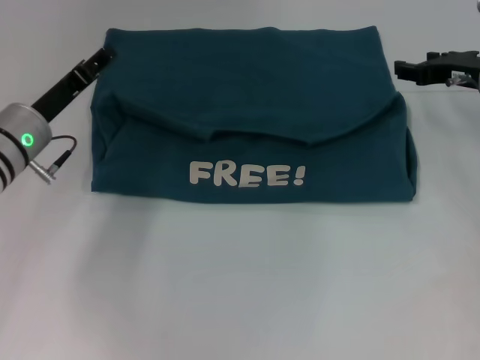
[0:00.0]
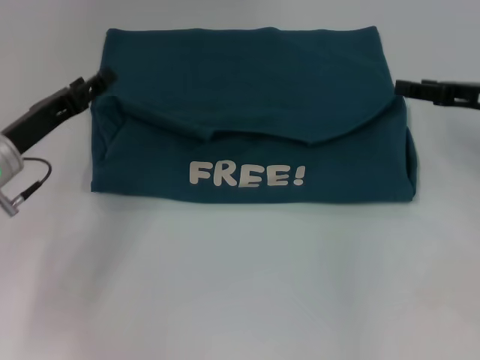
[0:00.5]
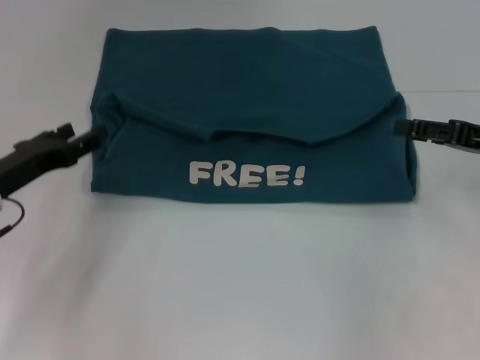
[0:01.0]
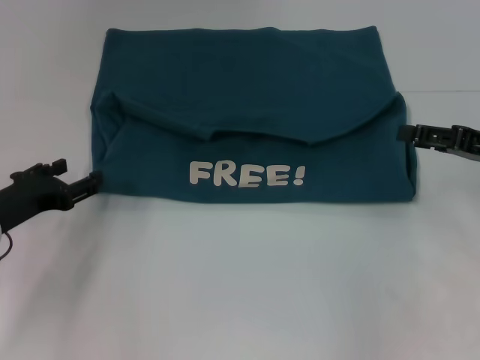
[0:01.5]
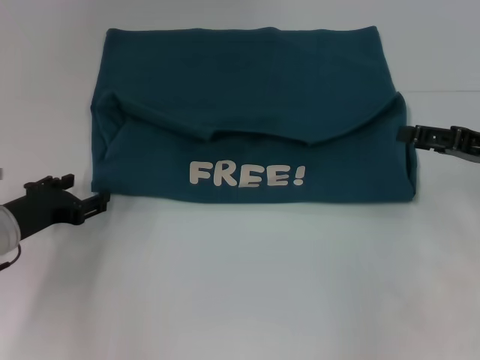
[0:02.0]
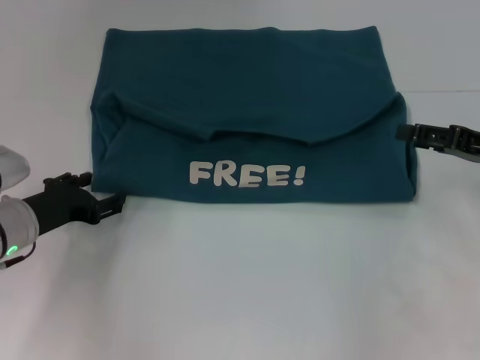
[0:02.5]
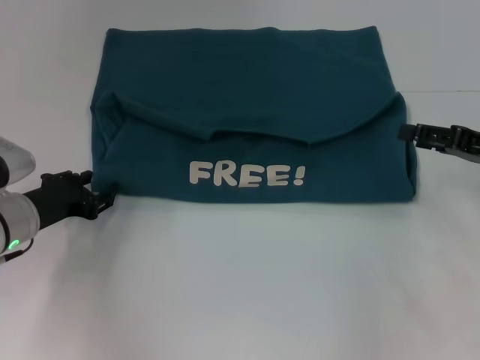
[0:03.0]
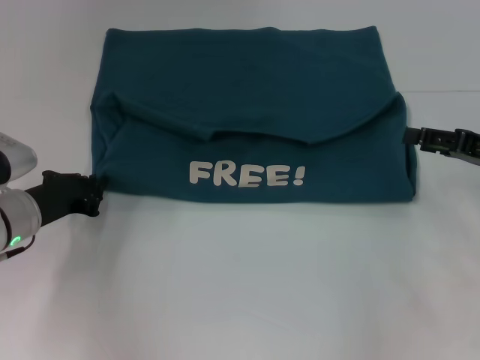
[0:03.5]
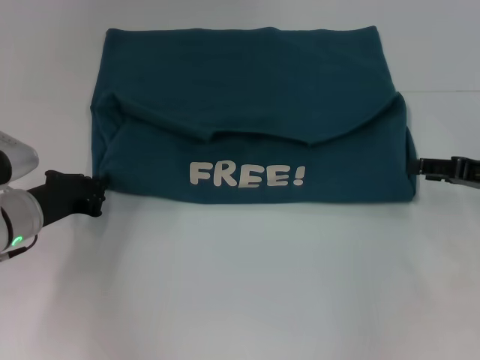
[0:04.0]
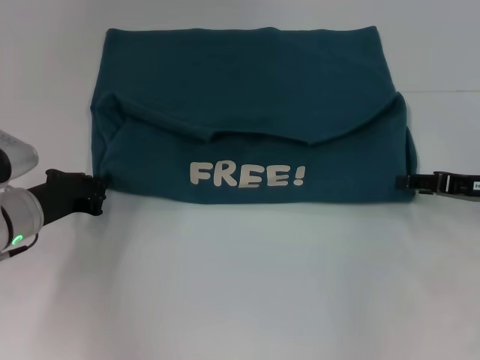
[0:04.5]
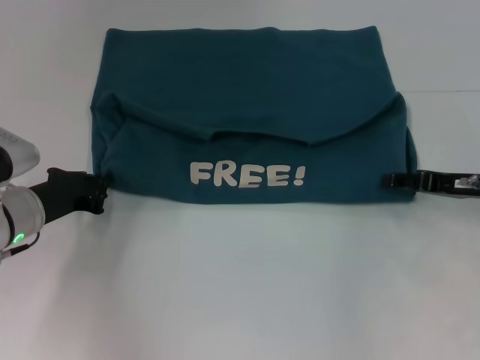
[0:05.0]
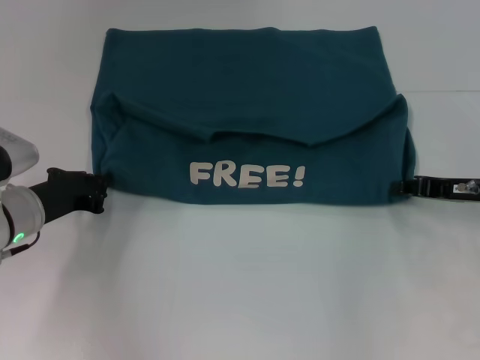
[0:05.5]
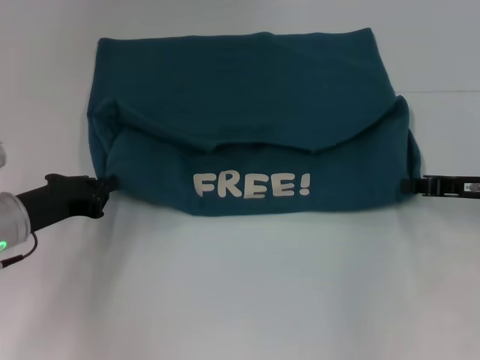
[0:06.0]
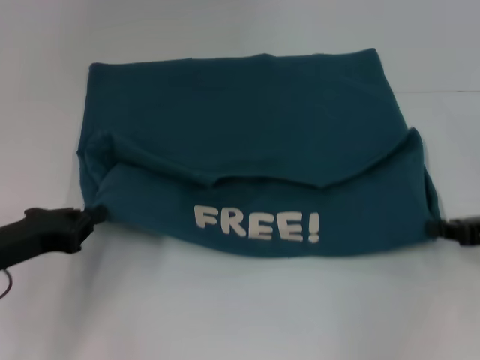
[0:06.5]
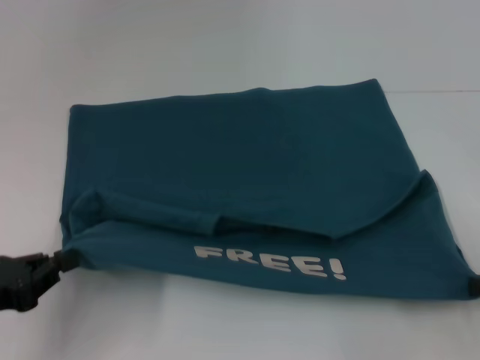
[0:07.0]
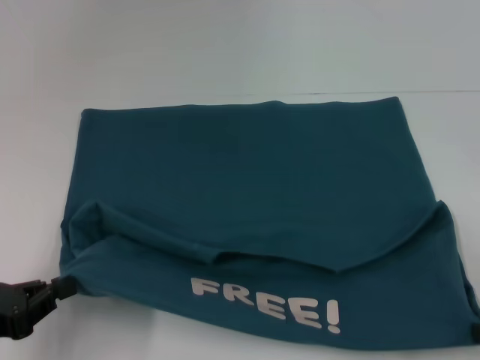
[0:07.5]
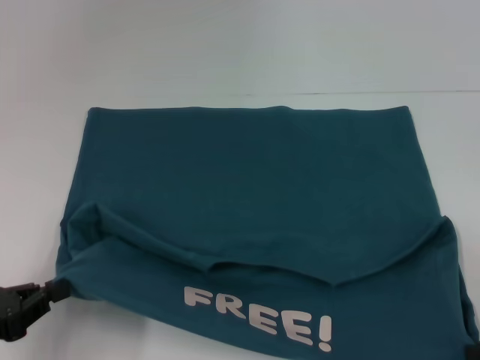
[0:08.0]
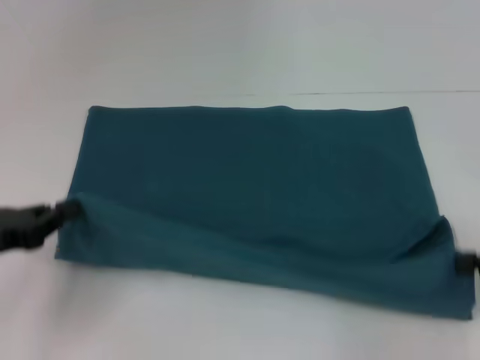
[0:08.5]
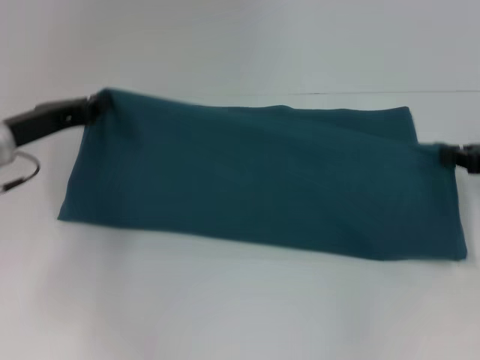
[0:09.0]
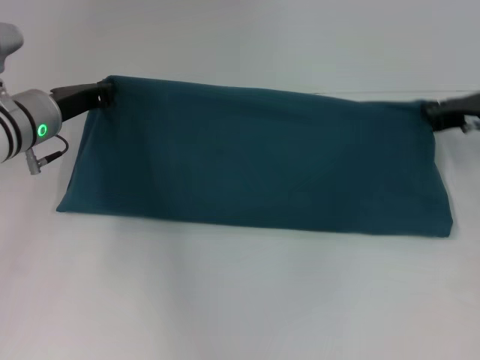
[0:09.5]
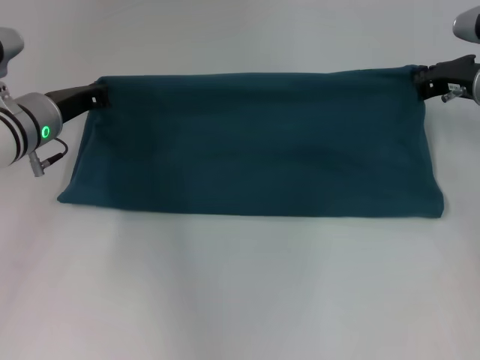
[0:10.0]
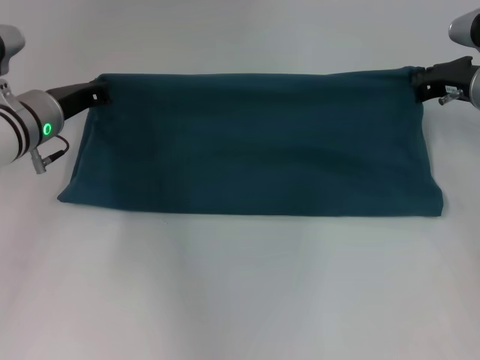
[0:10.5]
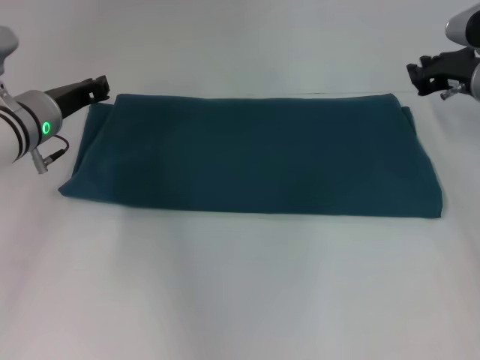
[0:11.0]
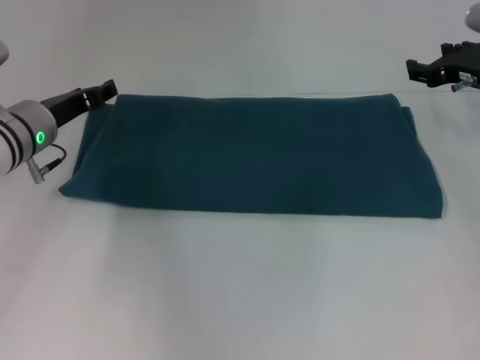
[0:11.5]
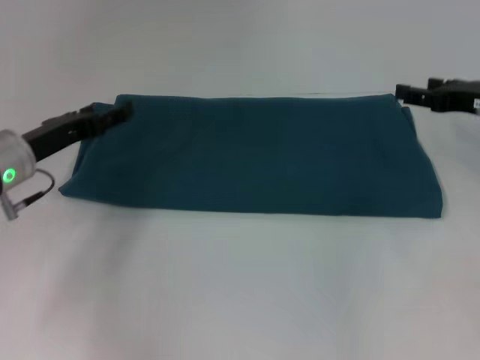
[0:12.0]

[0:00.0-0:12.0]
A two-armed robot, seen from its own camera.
Step, 0:00.0 to 0:07.0: Pull the clothes with your left hand.
Step, 0:00.0 to 0:07.0: Pull the clothes with your right hand.
Step, 0:07.5 to 0:11.0: Fold the clothes to the left.
Step, 0:07.5 to 0:11.0: Fold the clothes to the right.
0:00.0 to 0:02.0: Both grippers travel together backward, approximately 10 cm.
0:02.0 to 0:04.0: The left gripper closes.
0:04.0 to 0:06.0: The right gripper closes.
0:06.0 to 0:08.0: The right gripper shifts about 15 cm backward; the left gripper moves backward and to the left, some 15 cm.
0:08.0 to 0:10.0: Both grippers travel together forward, approximately 25 cm.
0:10.0 to 0:12.0: The grippers both shift backward by roughly 5 cm. The right gripper opens. Meanwhile the left gripper opens.

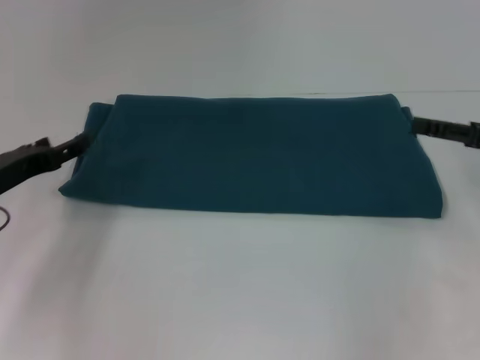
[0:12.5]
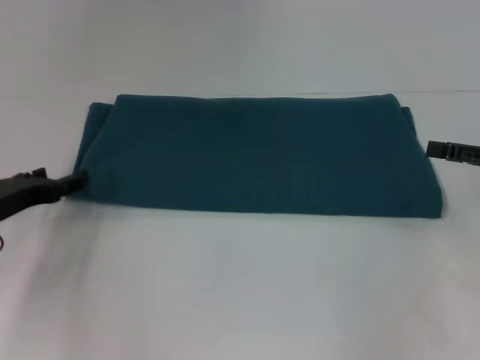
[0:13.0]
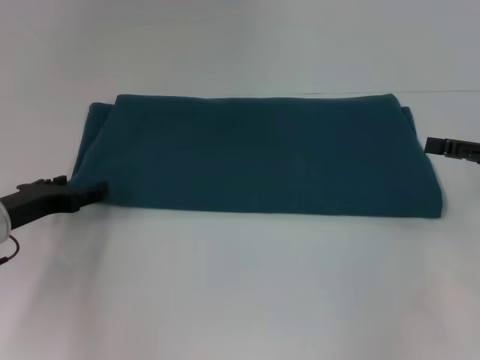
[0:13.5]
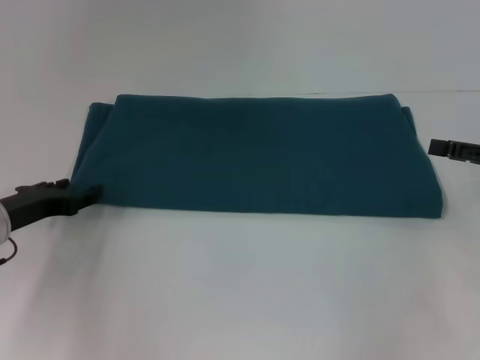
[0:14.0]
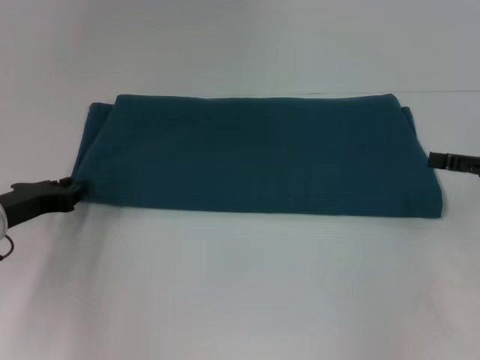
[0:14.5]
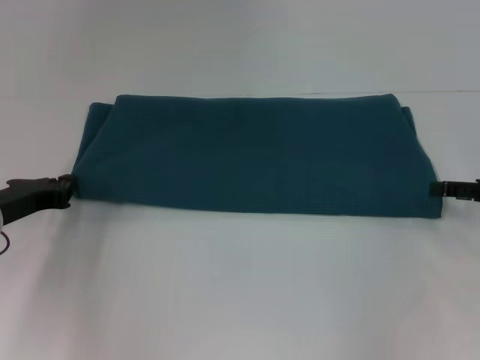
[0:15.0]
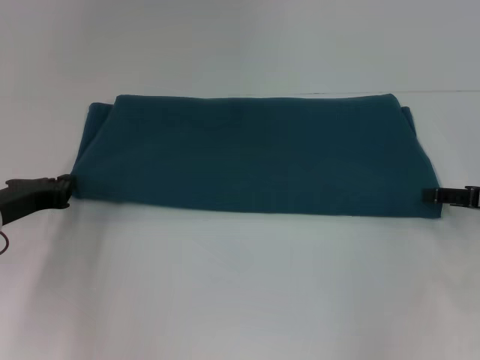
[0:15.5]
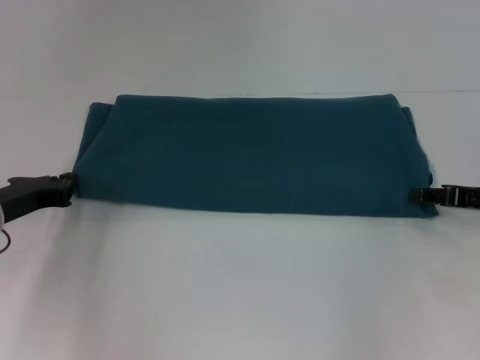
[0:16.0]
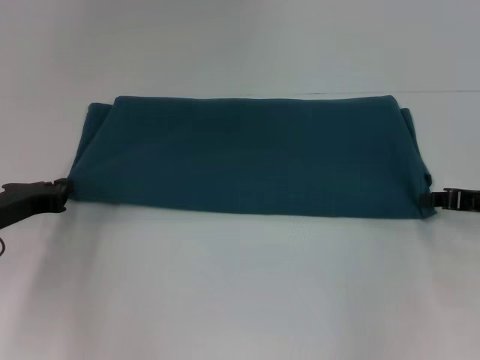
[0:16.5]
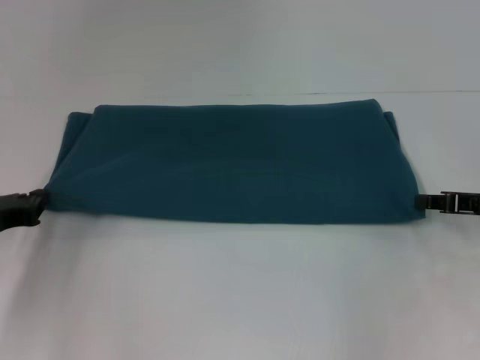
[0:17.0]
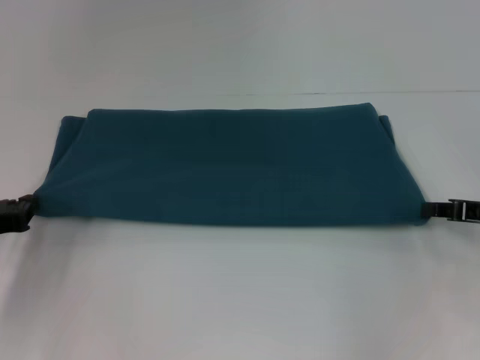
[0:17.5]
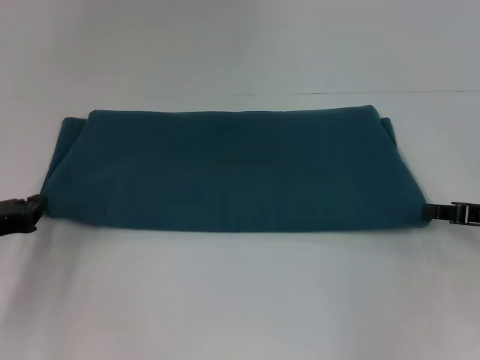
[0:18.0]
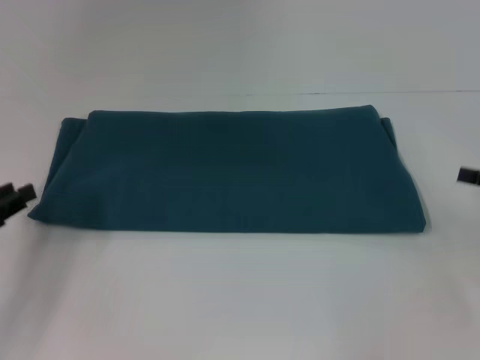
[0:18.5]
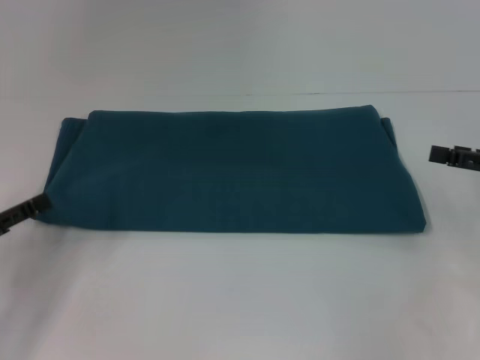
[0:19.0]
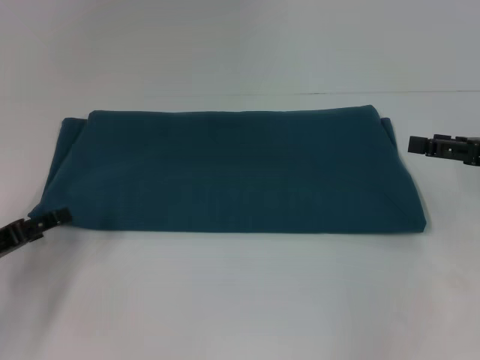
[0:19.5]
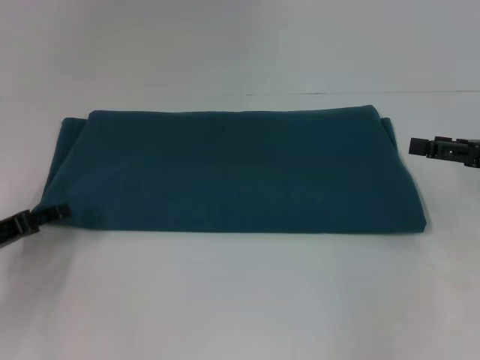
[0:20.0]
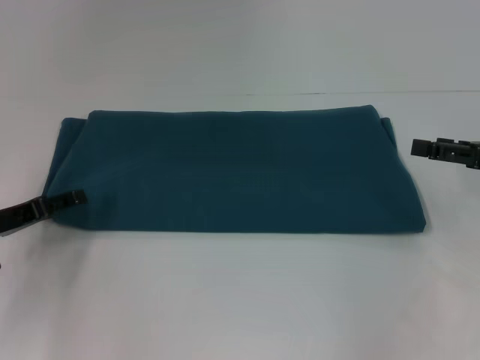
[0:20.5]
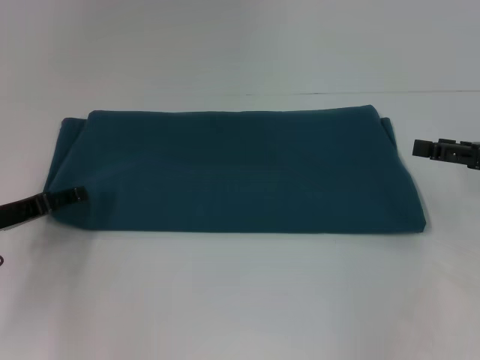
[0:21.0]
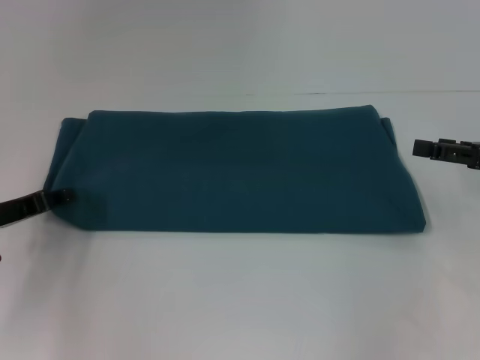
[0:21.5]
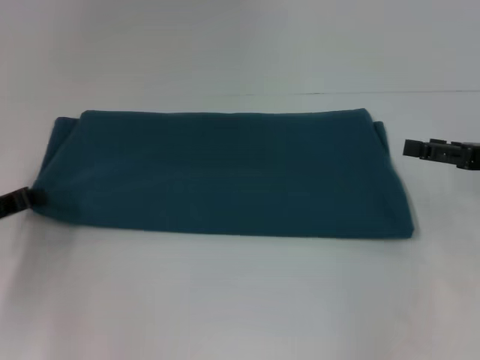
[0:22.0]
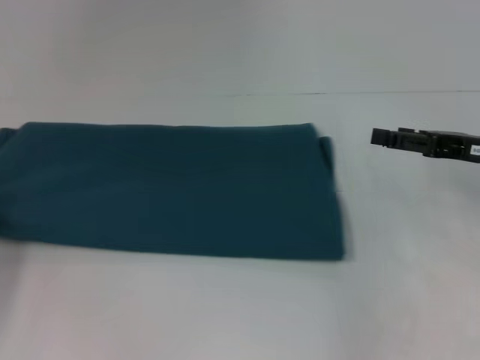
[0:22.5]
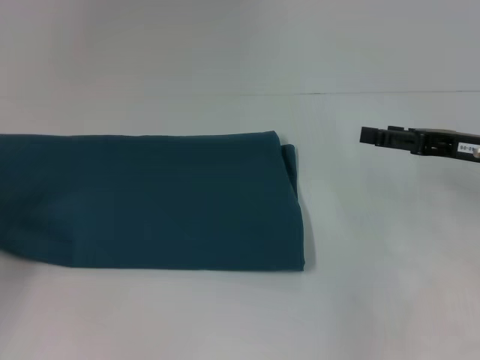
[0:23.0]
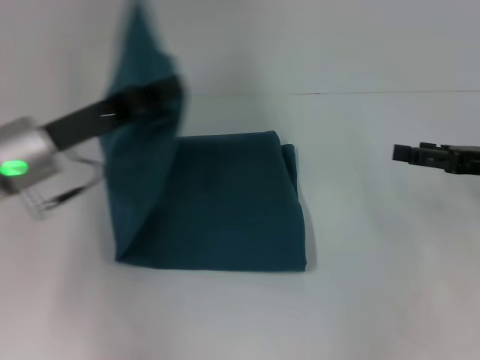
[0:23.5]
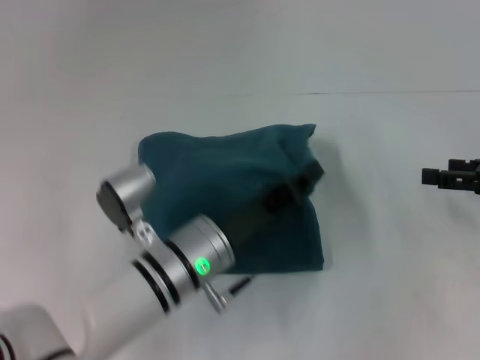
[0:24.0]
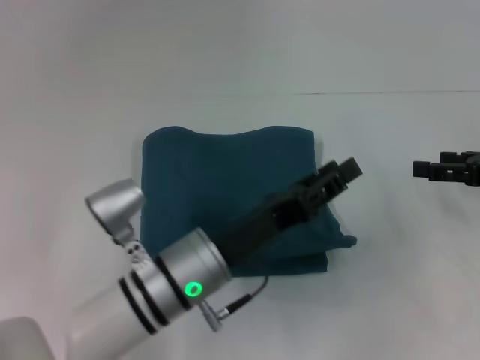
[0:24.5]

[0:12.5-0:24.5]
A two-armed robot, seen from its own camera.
Step, 0:12.5 to 0:18.5: Pull the clothes with your left hand.
Step, 0:12.5 to 0:18.5: Pull the clothes with your right hand.
Step, 0:19.0 to 0:24.5: Fold the clothes to the left.
0:12.5 to 0:14.5: The left gripper closes its fingers.
0:14.5 to 0:16.5: The left gripper closes up. The right gripper changes place by about 5 cm, and closes up.
0:16.5 to 0:18.5: The left gripper moves backward, some 5 cm. Meanwhile the right gripper ends up roughly 5 cm from where it was.
0:18.5 to 0:20.5: The right gripper changes place by roughly 5 cm, and opens its fingers, while the left gripper moves about 5 cm, and opens.
0:20.5 to 0:22.5: The left gripper moves to the left, some 10 cm, and closes.
0:22.5 to 0:24.5: The left gripper goes about 30 cm to the right.

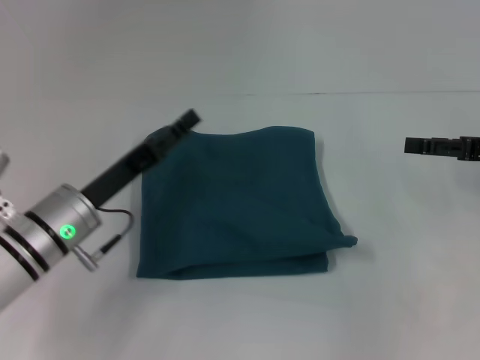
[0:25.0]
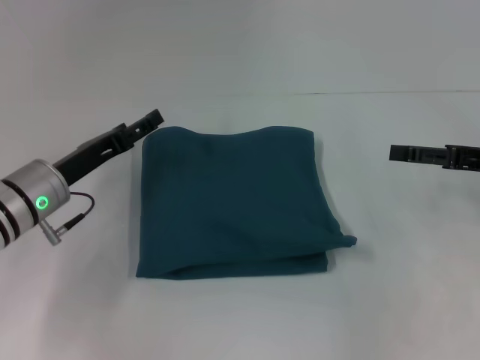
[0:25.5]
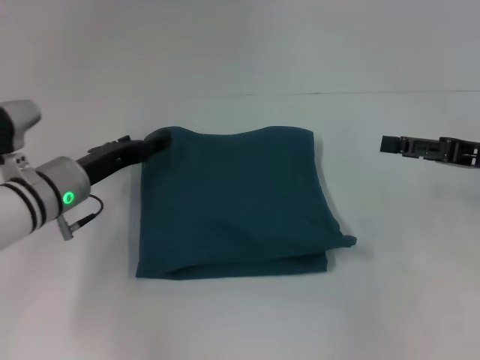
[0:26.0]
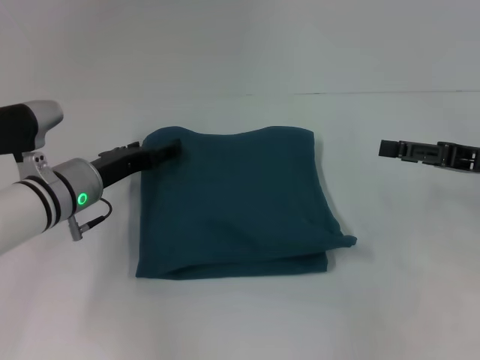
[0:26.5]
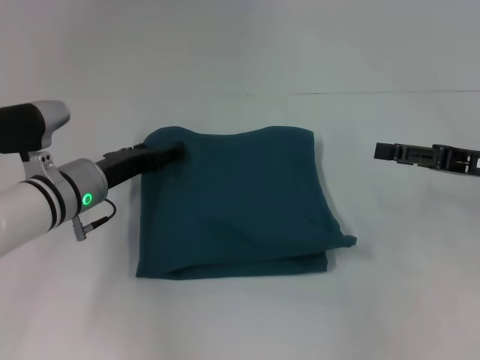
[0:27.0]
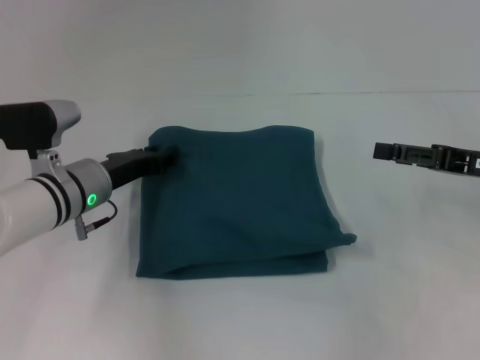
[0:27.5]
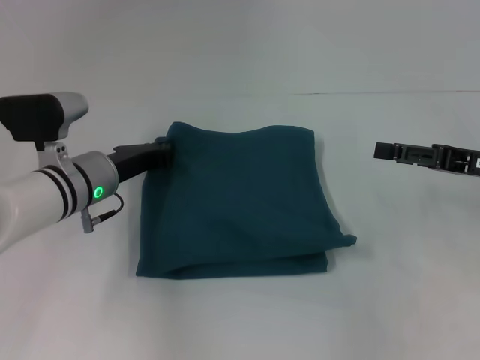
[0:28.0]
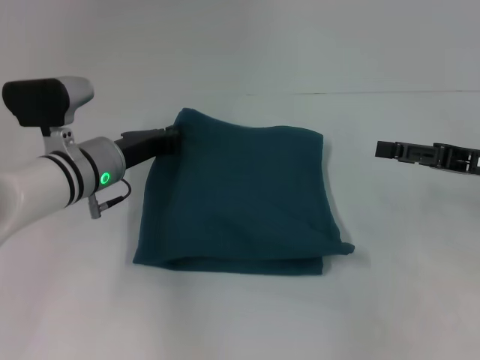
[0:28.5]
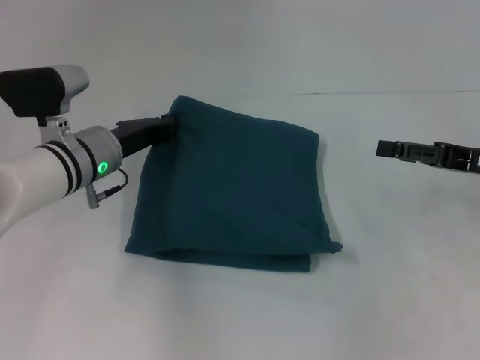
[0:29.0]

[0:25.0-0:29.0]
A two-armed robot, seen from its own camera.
0:25.0 to 0:27.0: The left gripper heads forward, covering approximately 5 cm.
0:27.0 to 0:29.0: The left gripper closes up.
